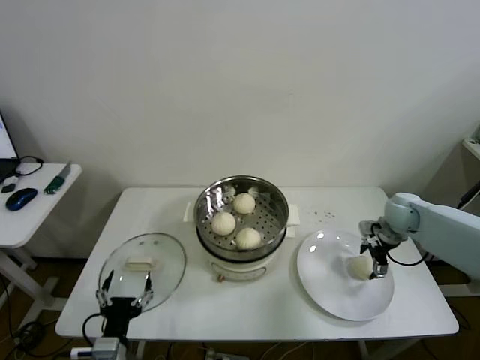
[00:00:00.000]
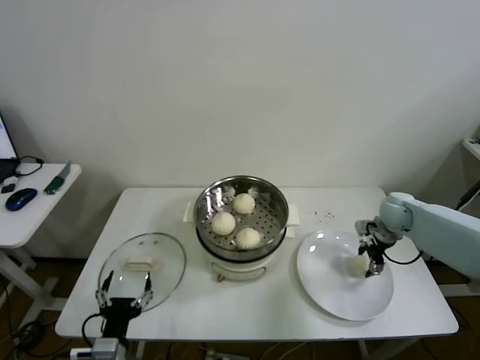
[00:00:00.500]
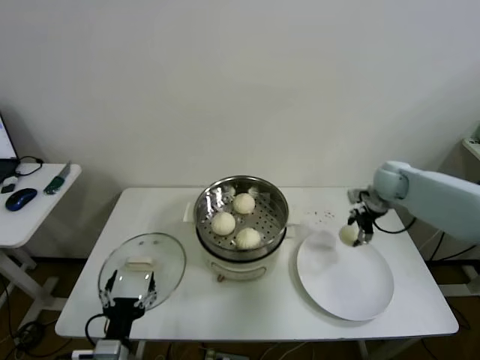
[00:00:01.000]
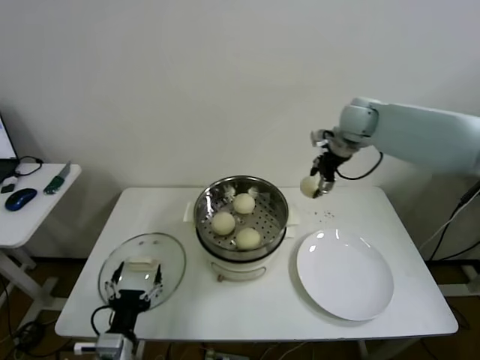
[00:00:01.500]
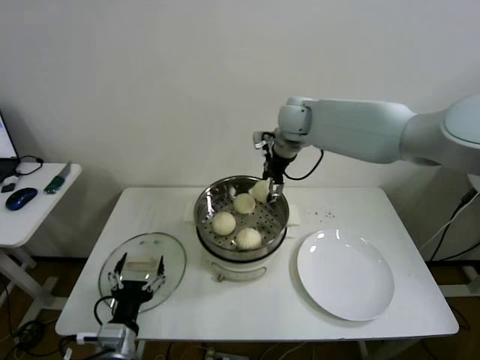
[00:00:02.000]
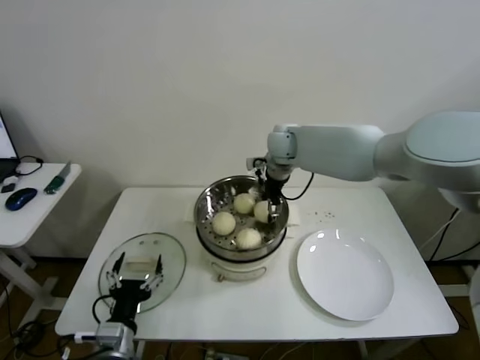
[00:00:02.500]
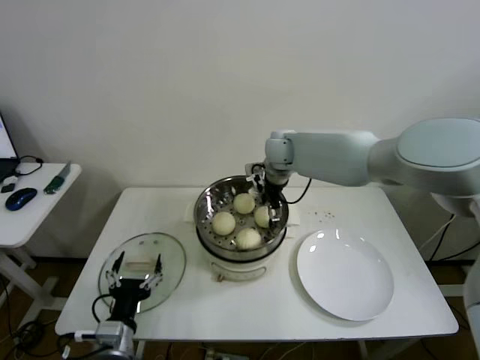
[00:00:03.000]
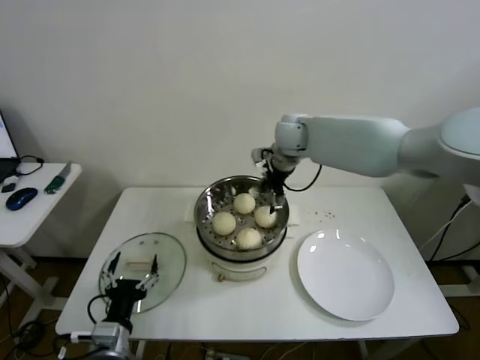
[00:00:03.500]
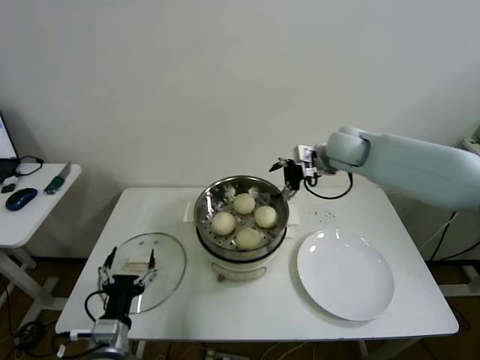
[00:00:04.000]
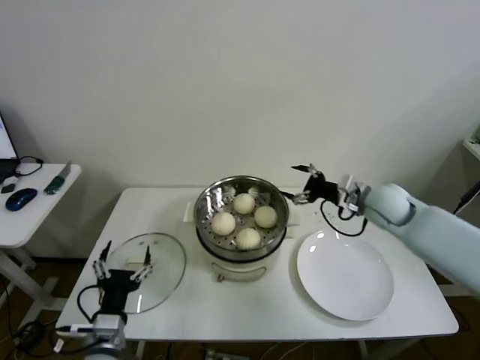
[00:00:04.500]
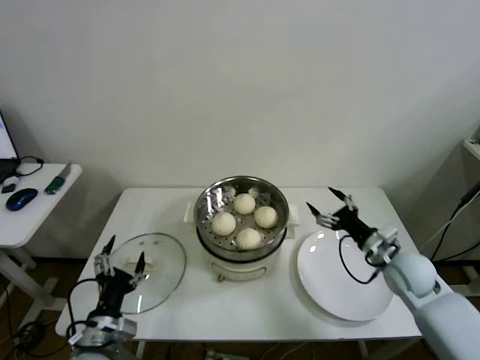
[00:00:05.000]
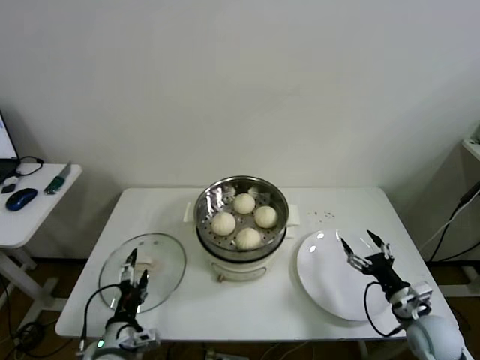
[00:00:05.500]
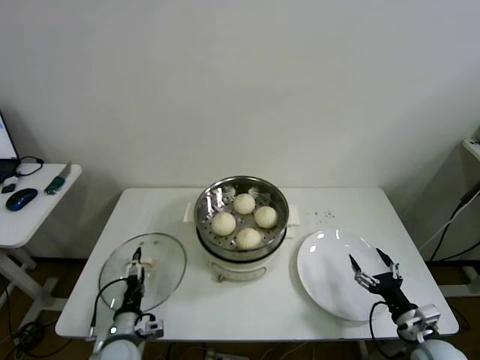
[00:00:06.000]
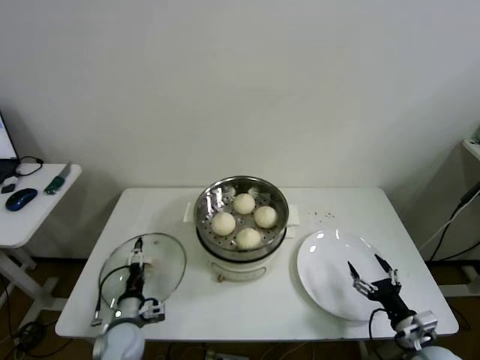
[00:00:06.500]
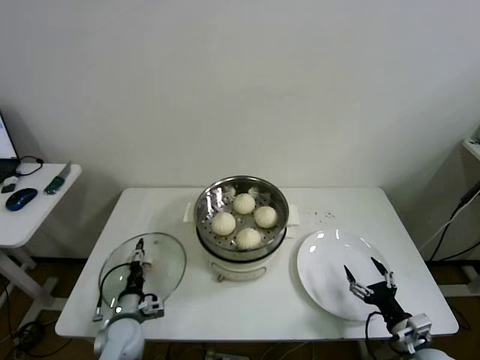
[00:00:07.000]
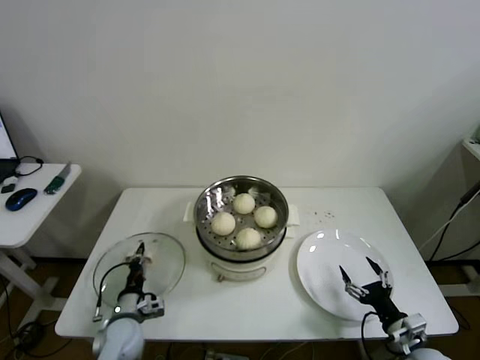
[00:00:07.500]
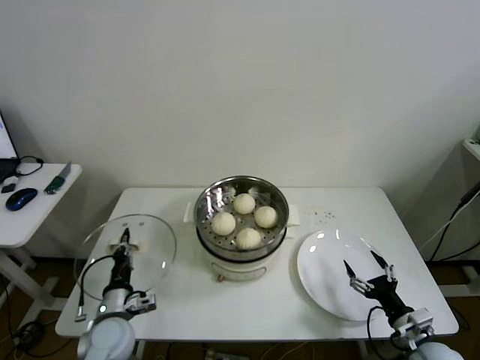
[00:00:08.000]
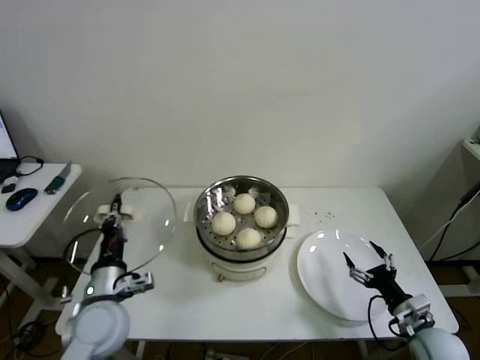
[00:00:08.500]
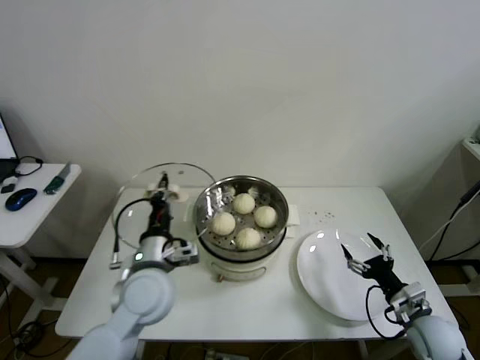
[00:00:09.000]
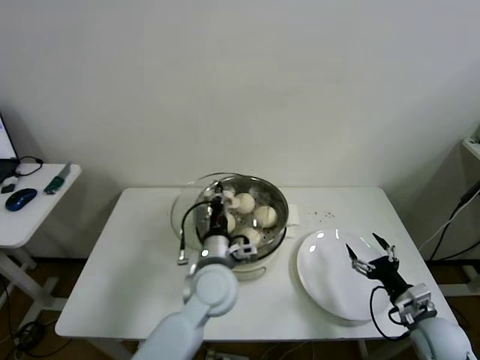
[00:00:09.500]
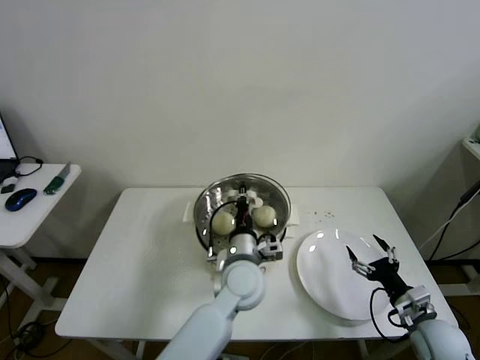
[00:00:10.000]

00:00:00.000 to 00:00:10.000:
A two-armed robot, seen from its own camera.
Step, 00:00:01.000 to 00:00:02.500: Place the baozi on the steamer with right gripper.
Step, 00:00:03.000 to 00:00:07.000: Grasp the pot lid with left gripper.
00:00:00.000 to 00:00:02.000: The right gripper goes about 35 cm to the left and upward, and closes its fingers.
00:00:02.000 to 00:00:04.000: The right gripper is displaced to the right and backward by approximately 10 cm, and opens.
00:00:04.000 to 00:00:06.000: The left gripper is displaced downward by about 10 cm. The right gripper shifts some 50 cm backward, downward and to the right.
00:00:06.000 to 00:00:08.000: The left gripper shifts by some 5 cm, and closes its fingers.
00:00:08.000 to 00:00:10.000: The right gripper moves some 5 cm, while the left gripper shifts about 30 cm to the right and upward.

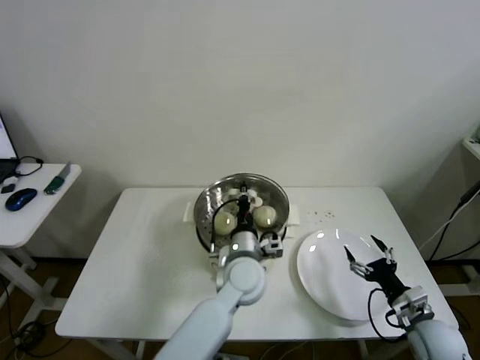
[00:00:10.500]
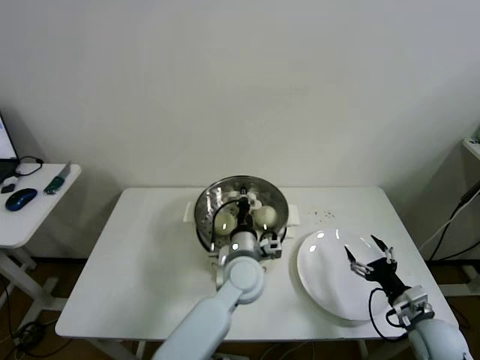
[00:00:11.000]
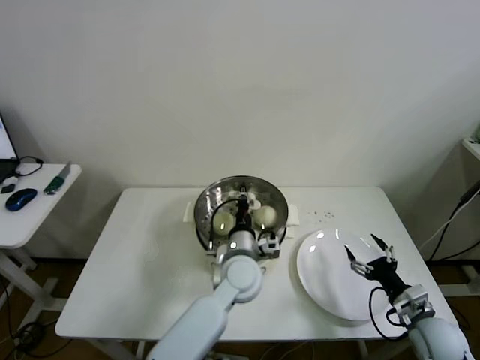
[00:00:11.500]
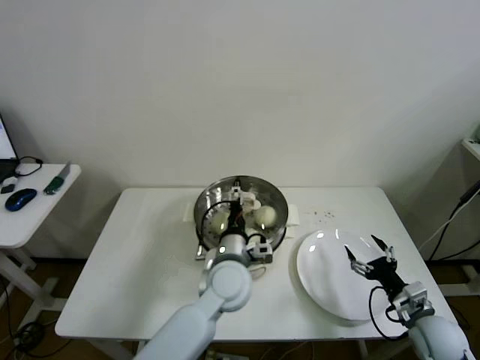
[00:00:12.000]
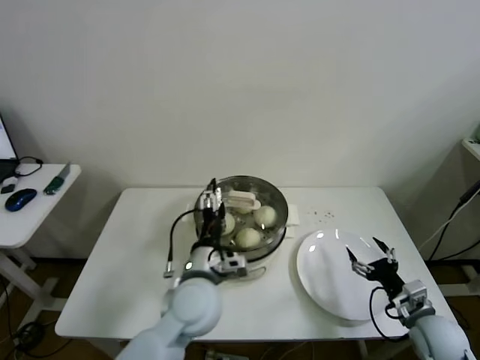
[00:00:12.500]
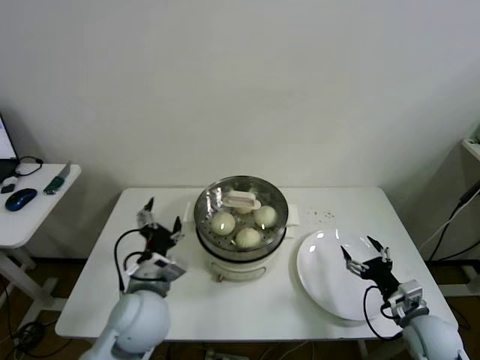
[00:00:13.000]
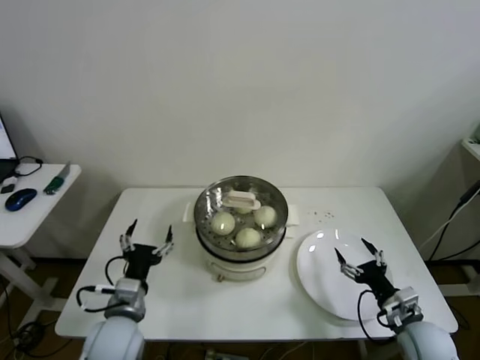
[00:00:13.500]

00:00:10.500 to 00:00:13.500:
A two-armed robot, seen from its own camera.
00:00:10.500 to 00:00:12.000: The left gripper opens up.
00:00:12.000 to 00:00:13.500: The left gripper travels to the left and backward by about 25 cm.
